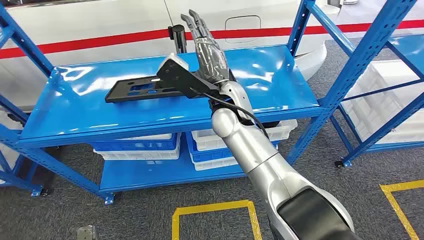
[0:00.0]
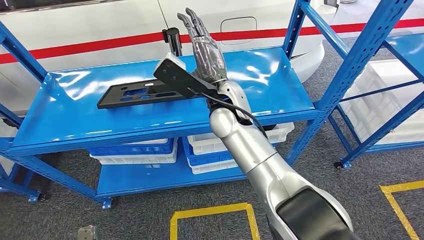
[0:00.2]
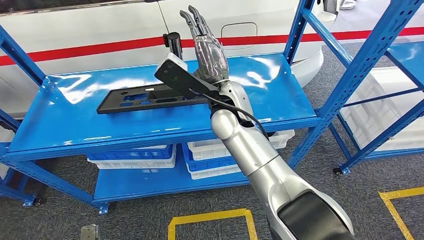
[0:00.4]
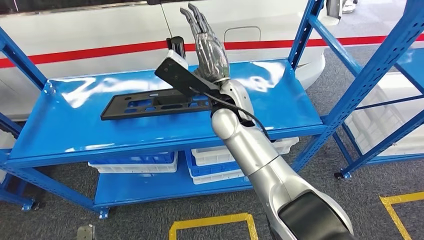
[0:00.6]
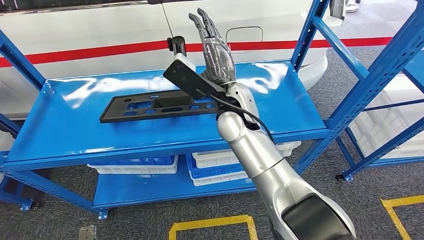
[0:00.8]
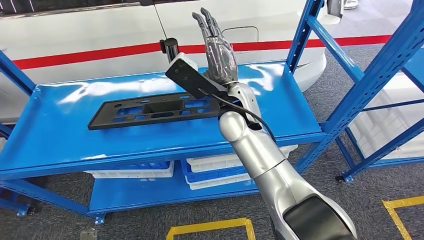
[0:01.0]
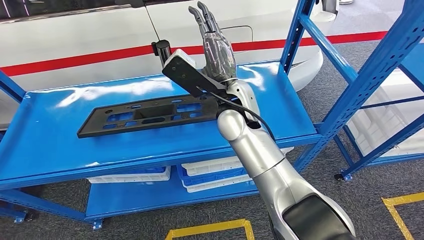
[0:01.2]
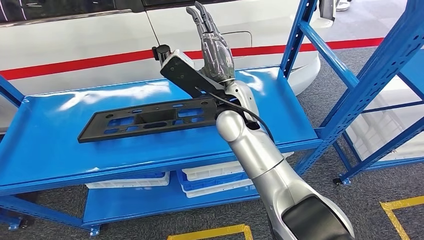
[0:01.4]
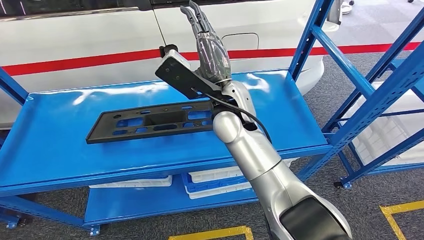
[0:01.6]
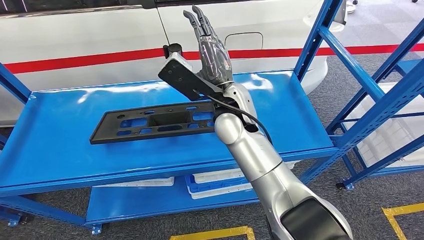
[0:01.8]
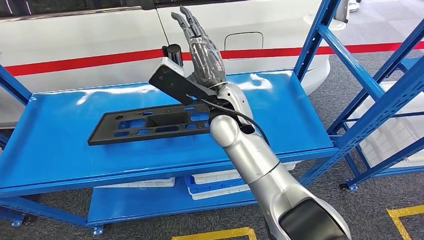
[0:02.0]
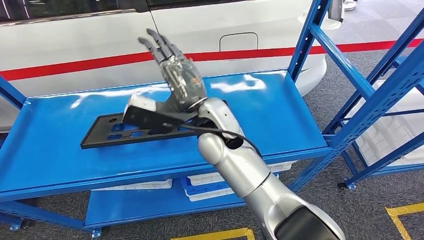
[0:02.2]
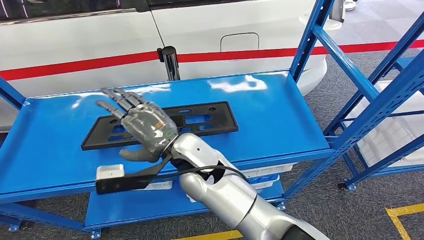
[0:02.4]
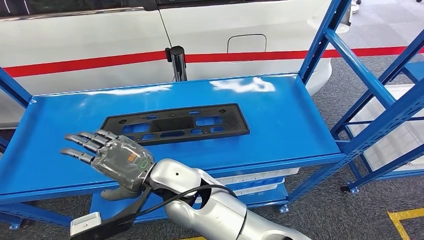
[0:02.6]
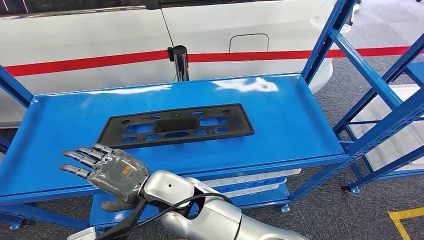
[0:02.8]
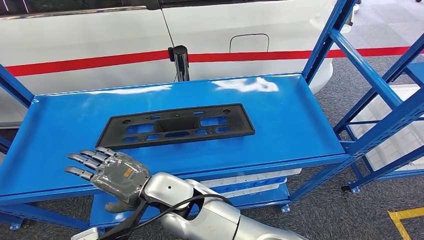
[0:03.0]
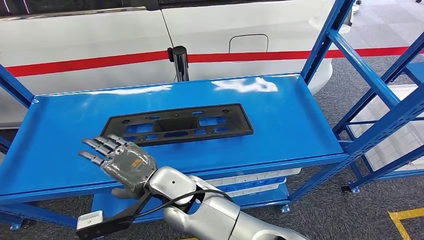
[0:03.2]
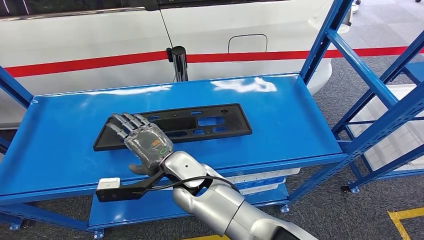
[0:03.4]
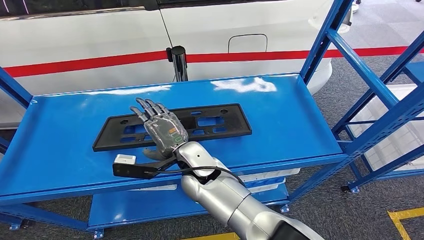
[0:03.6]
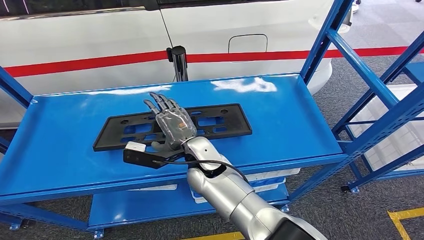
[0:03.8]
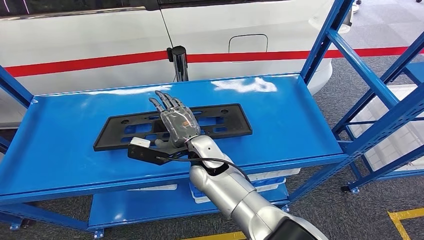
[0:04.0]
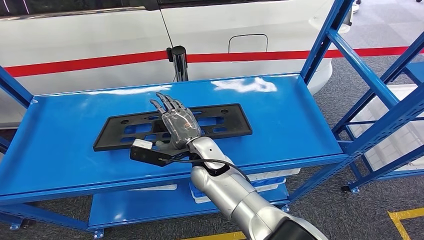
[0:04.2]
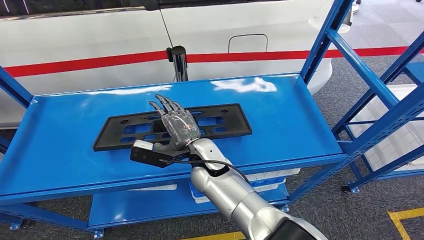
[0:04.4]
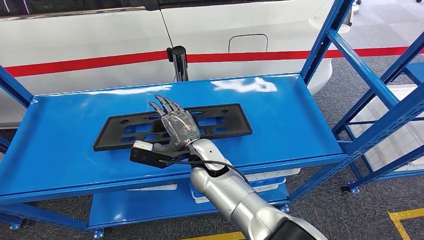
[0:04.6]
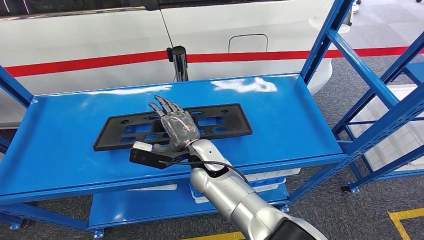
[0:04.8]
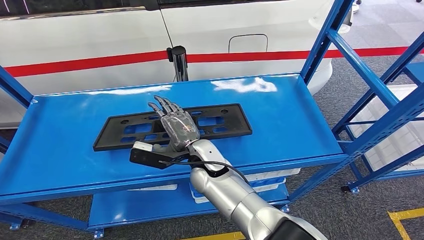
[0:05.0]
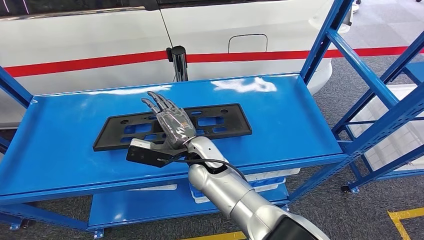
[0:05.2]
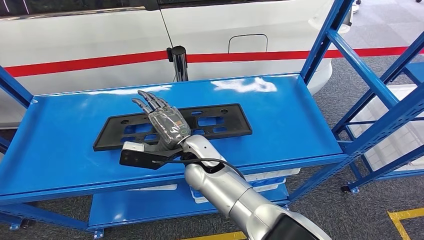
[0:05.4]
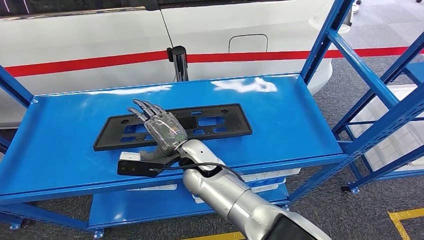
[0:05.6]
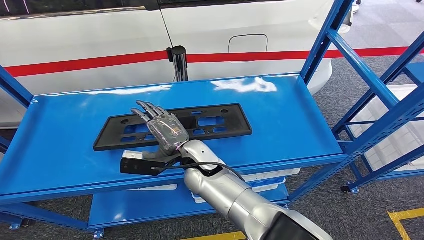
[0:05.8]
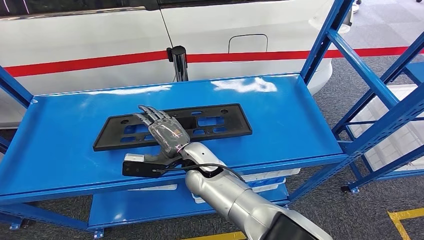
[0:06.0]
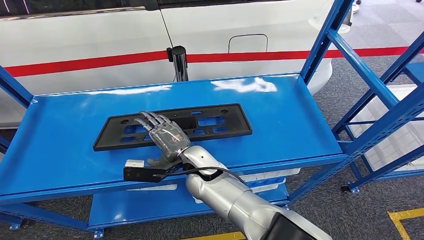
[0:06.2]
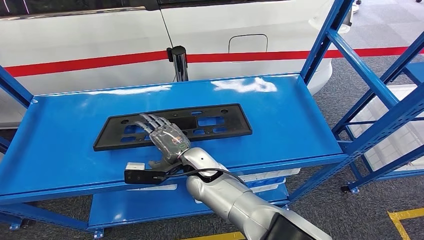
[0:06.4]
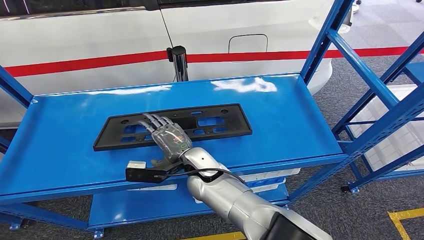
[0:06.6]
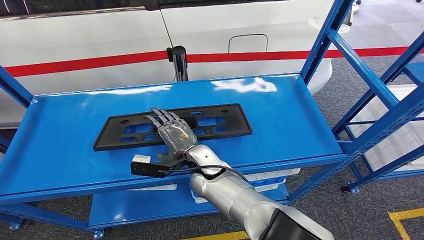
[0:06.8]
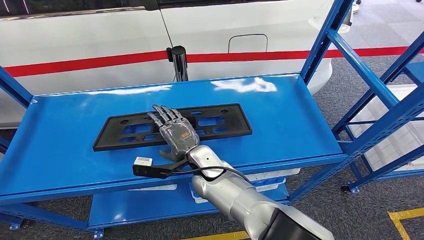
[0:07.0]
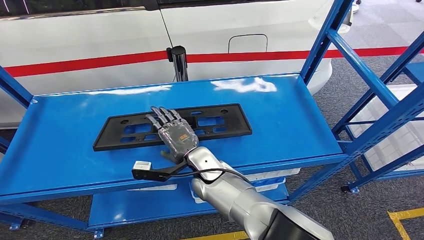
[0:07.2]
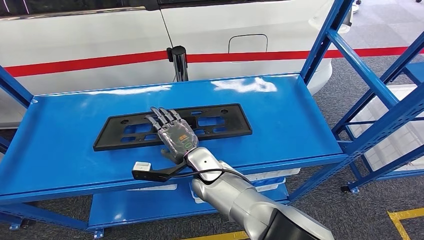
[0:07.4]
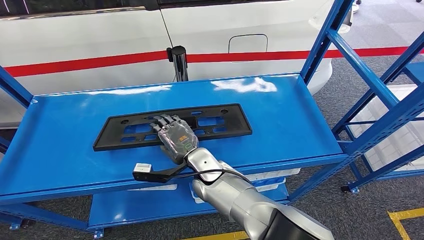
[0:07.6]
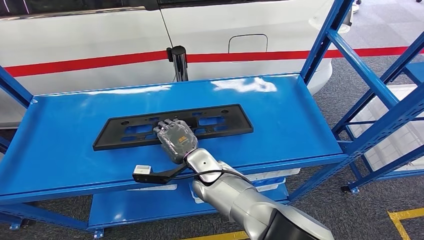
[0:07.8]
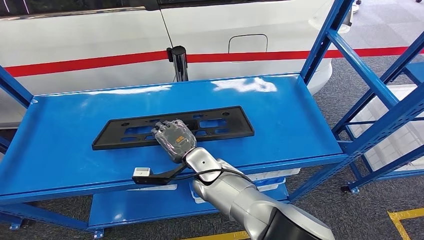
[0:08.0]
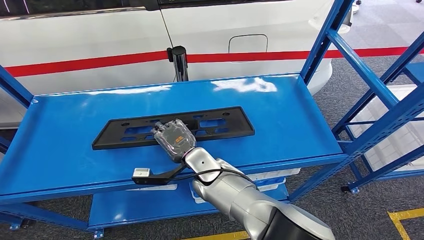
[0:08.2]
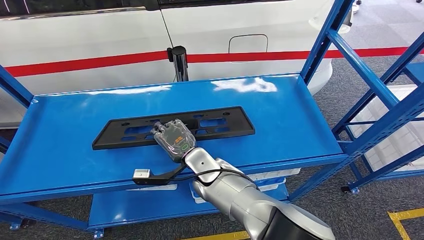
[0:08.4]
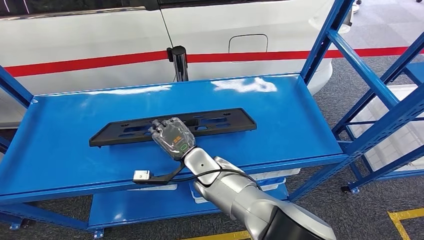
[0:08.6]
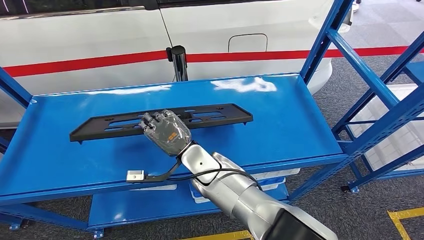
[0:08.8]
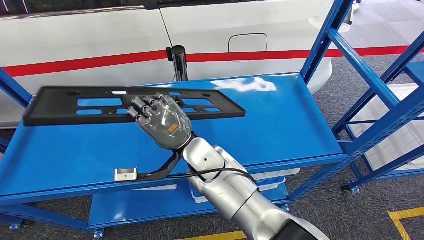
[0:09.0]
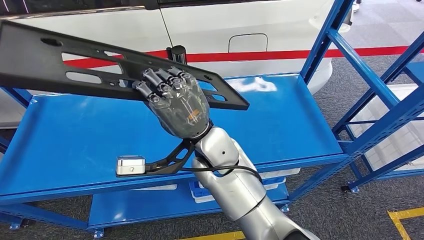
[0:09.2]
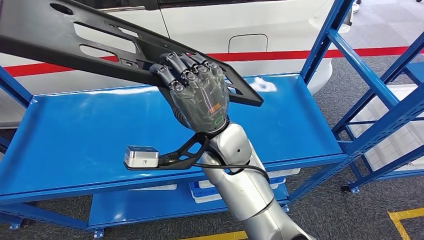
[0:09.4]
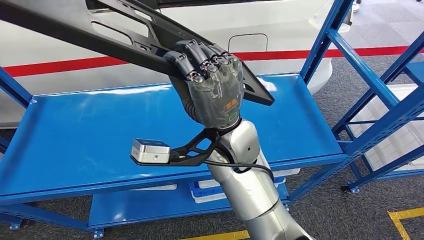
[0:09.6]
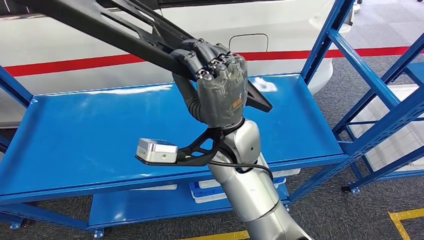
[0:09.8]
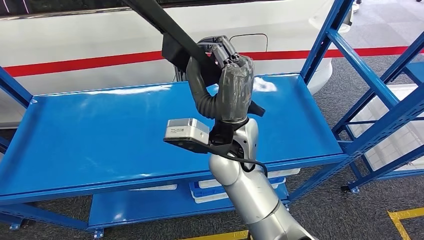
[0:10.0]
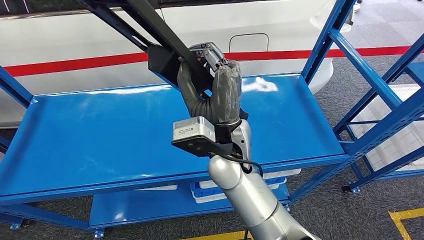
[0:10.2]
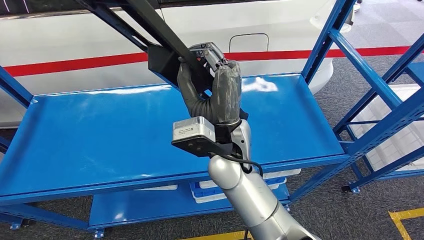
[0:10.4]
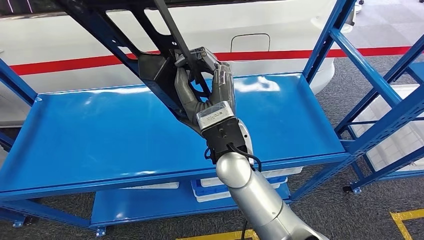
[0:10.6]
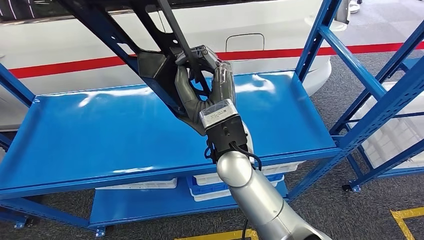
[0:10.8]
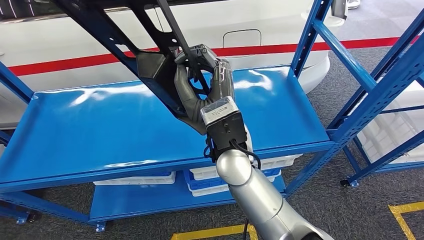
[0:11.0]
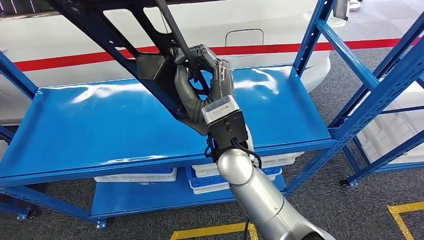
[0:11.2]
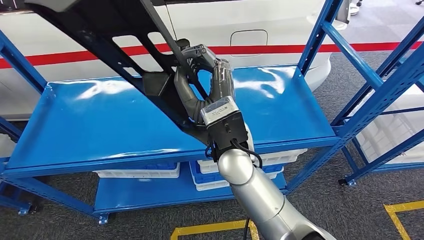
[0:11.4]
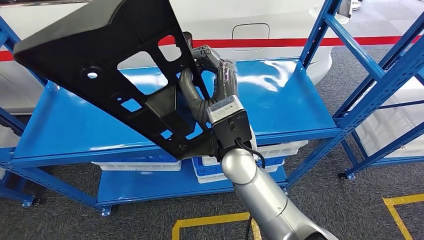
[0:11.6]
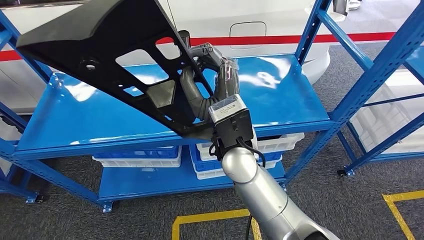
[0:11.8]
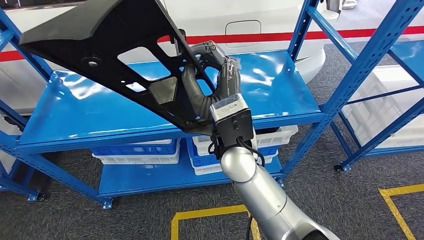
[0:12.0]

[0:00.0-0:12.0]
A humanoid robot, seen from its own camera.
0:03.0 to 0:04.4: The right hand is displaced forward and to the right by approximately 10 cm.
0:04.4 to 0:06.0: The hands move only a little.
0:07.6 to 0:09.0: The right hand travels upward by roughly 10 cm.

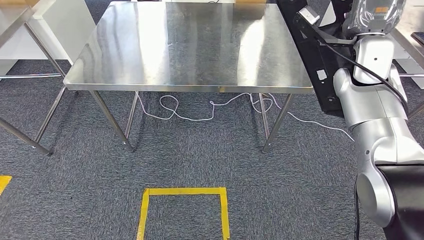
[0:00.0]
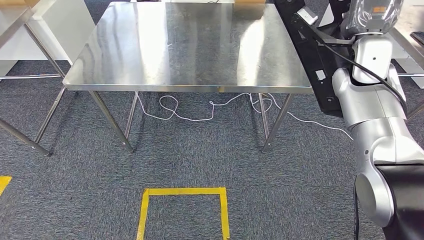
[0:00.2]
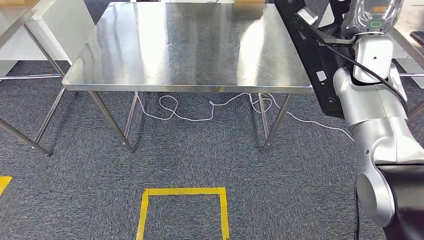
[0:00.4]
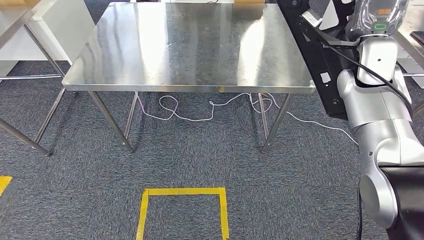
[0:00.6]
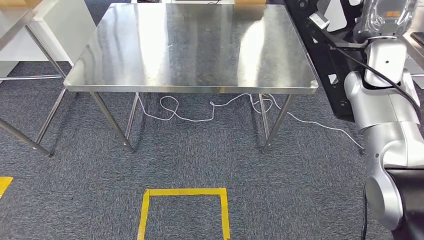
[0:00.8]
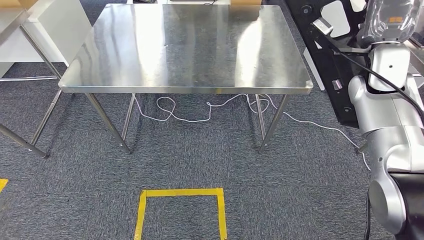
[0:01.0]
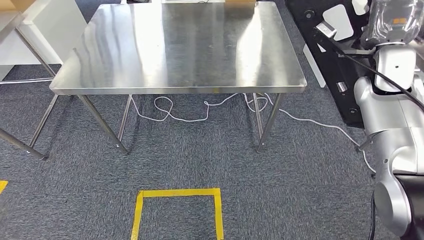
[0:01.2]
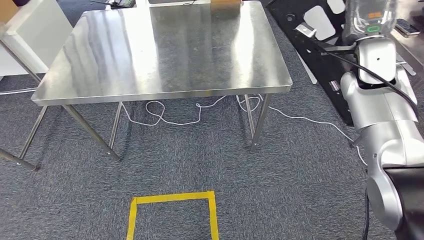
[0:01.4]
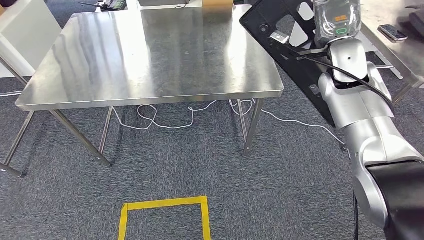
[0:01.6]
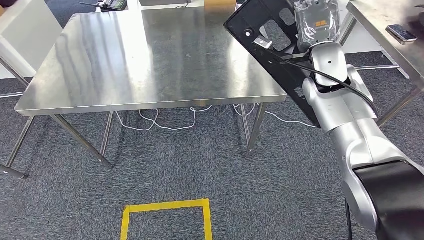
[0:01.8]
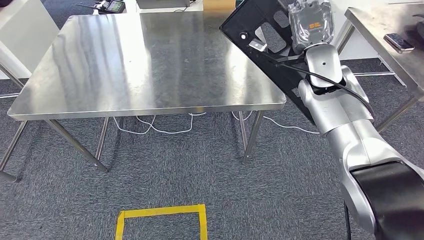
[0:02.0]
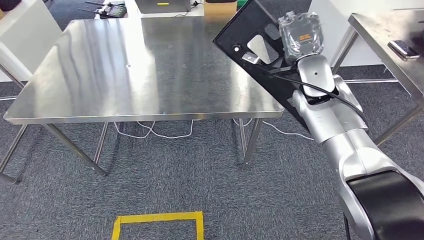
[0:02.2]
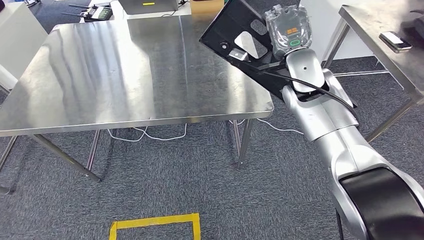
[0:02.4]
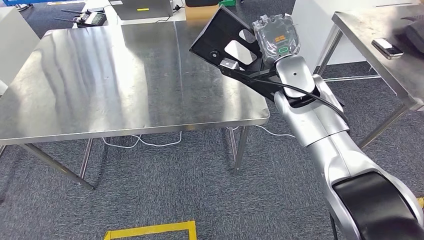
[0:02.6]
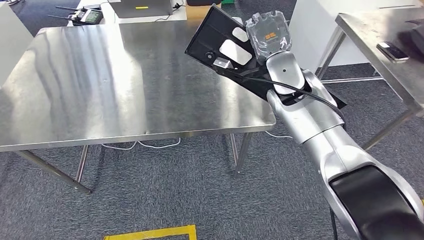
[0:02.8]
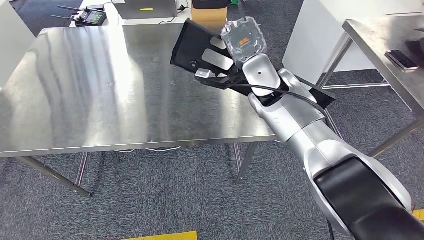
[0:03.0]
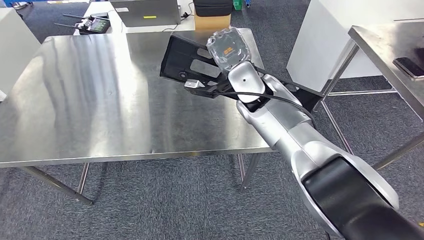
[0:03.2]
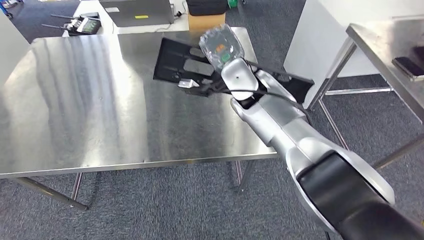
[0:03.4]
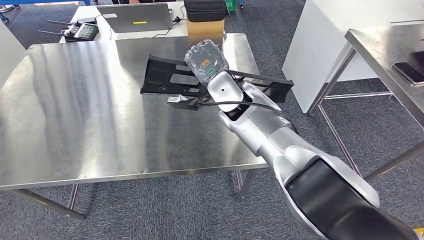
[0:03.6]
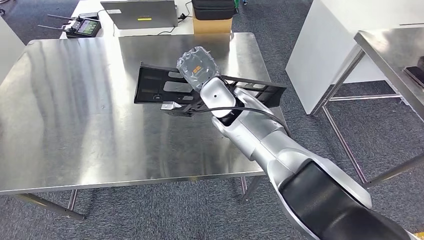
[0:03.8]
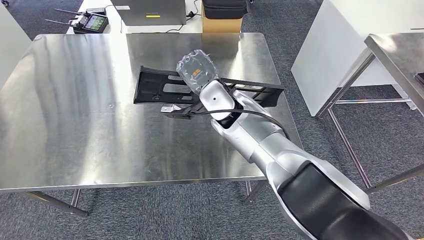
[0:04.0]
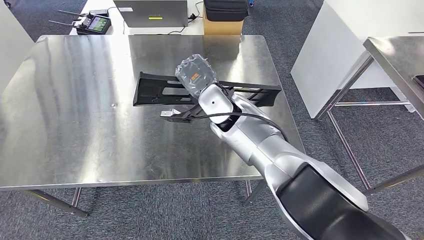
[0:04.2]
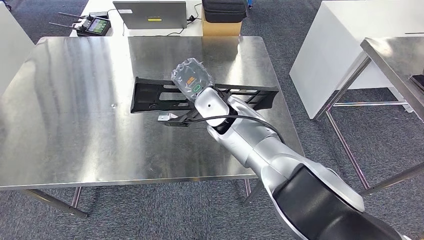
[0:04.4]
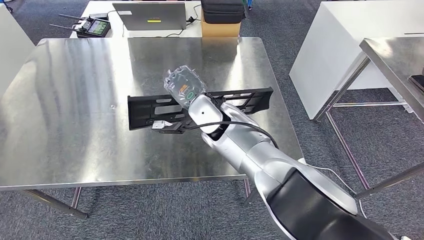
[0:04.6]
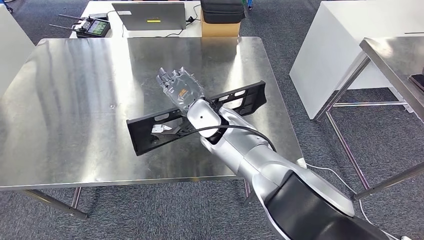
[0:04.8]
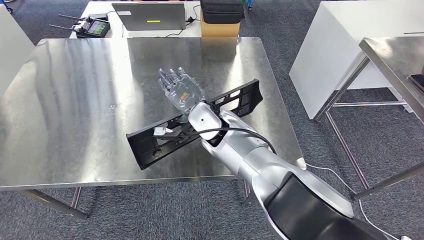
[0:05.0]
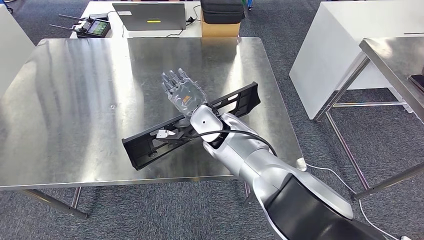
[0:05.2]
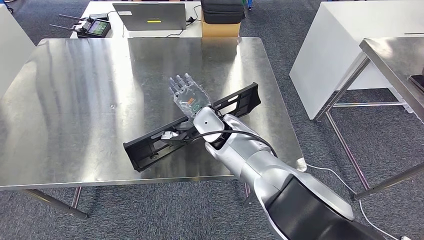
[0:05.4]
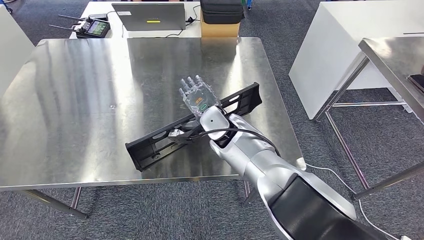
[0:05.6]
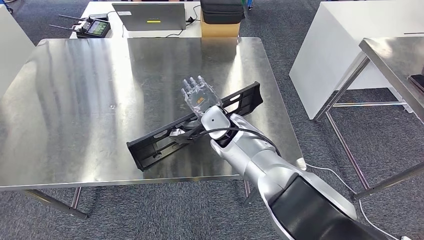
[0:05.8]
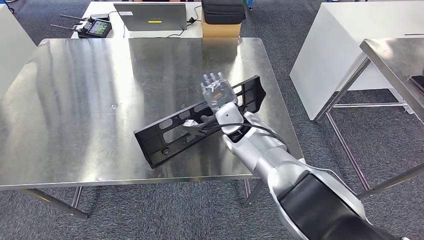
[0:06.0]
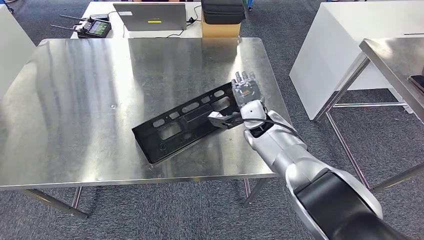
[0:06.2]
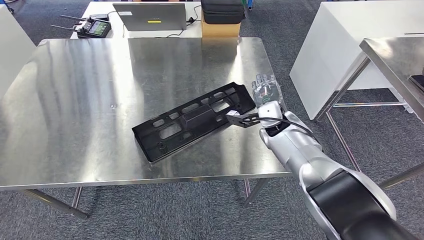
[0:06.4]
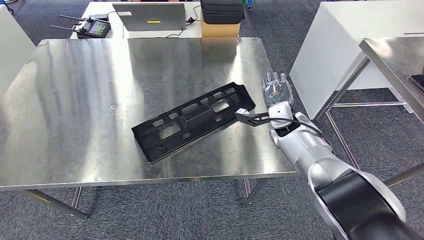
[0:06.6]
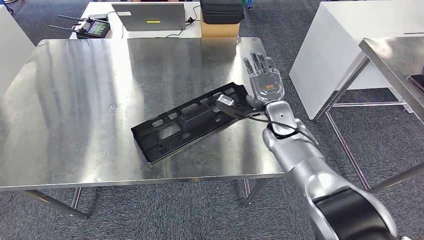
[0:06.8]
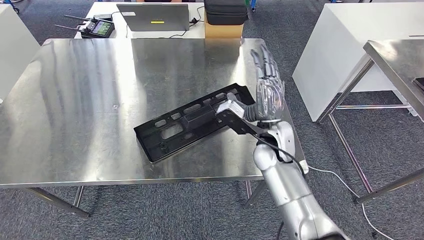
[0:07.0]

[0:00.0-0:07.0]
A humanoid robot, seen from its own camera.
Step, 0:00.0 to 0:02.0: Move the large parts to the workbench.
